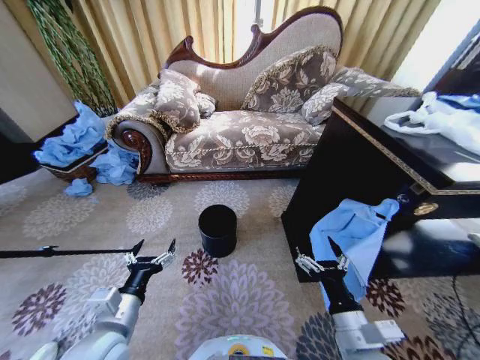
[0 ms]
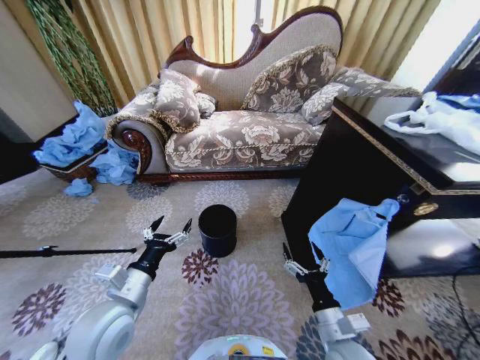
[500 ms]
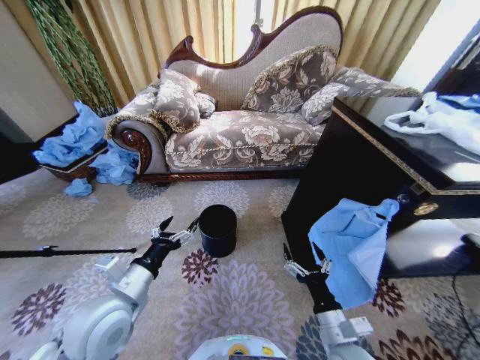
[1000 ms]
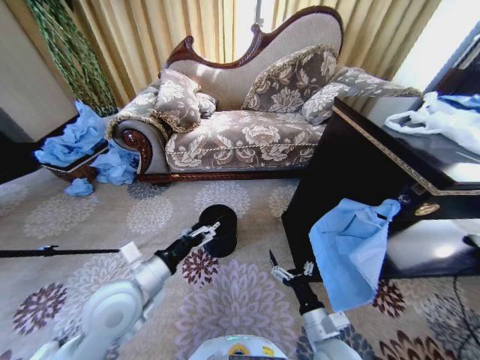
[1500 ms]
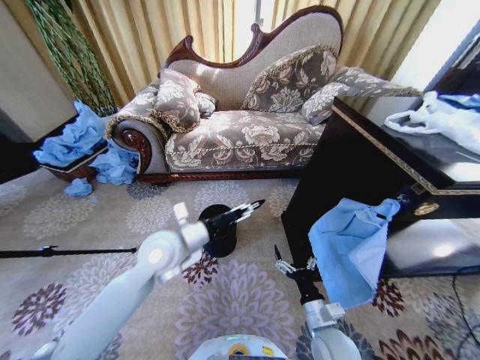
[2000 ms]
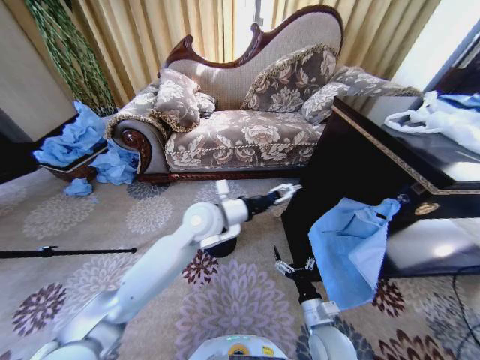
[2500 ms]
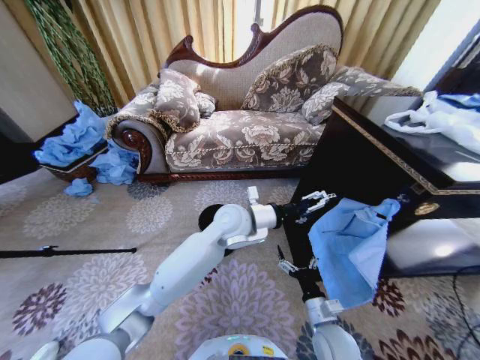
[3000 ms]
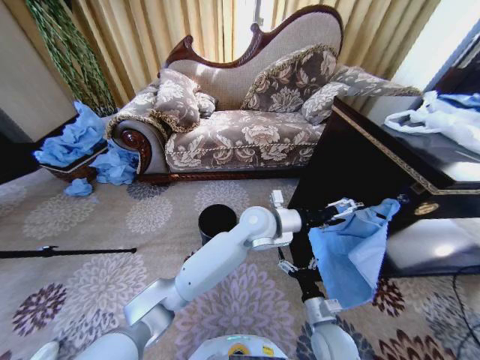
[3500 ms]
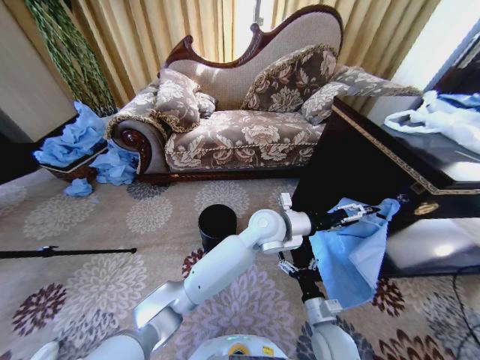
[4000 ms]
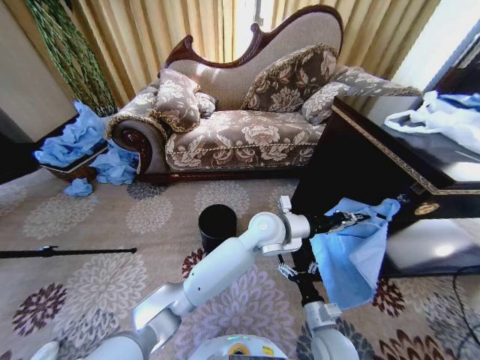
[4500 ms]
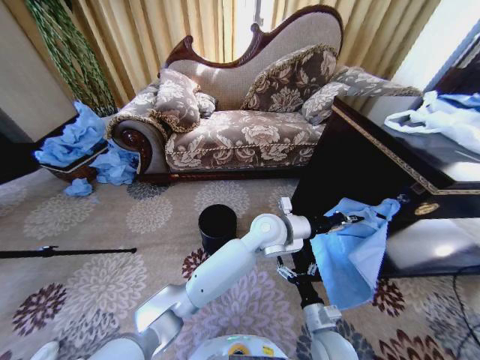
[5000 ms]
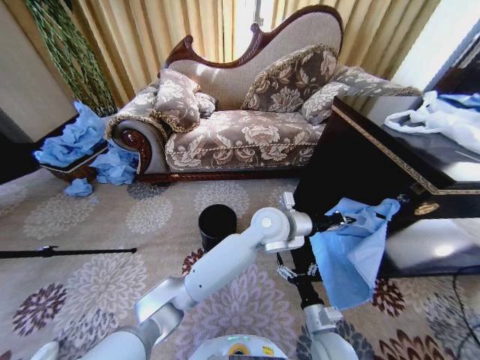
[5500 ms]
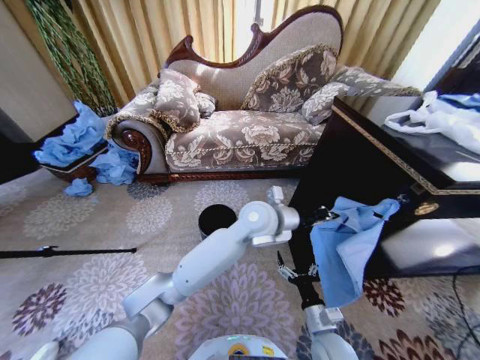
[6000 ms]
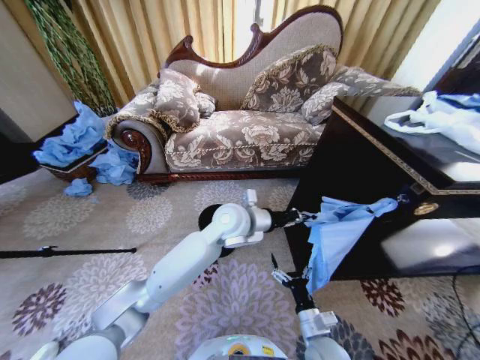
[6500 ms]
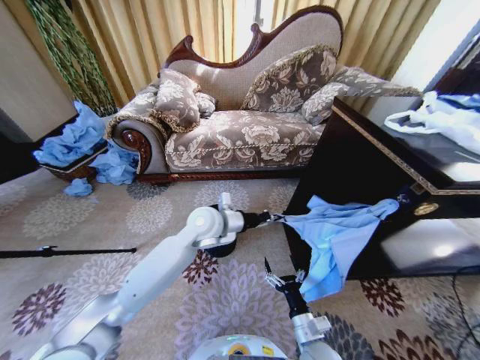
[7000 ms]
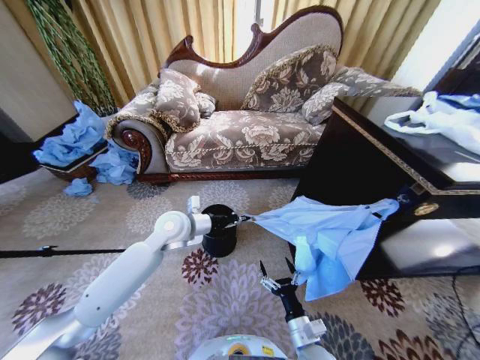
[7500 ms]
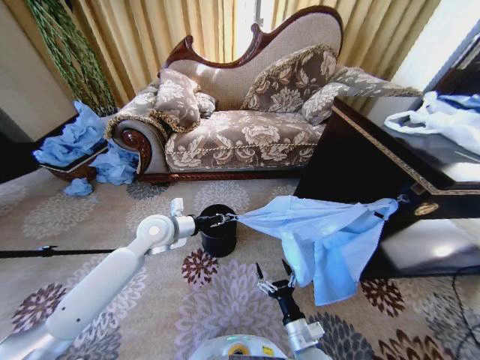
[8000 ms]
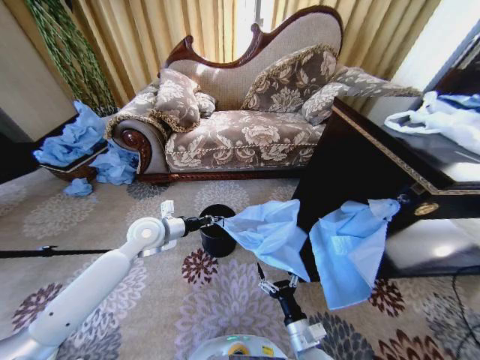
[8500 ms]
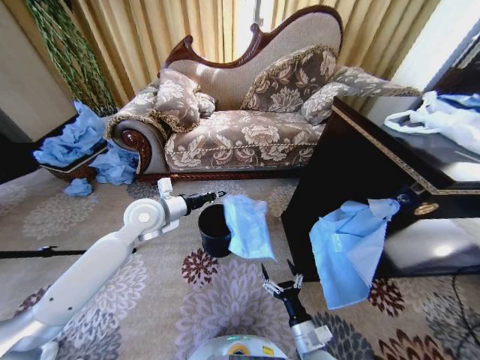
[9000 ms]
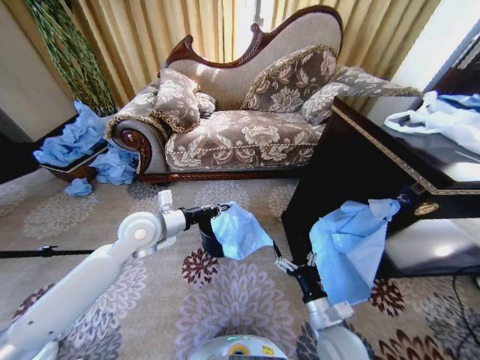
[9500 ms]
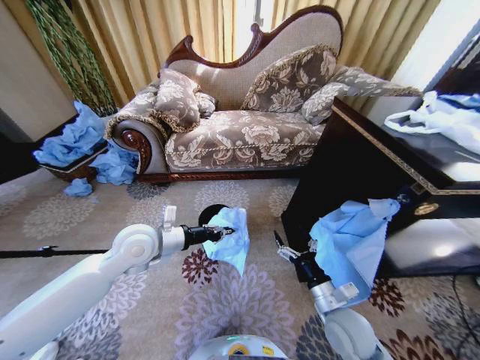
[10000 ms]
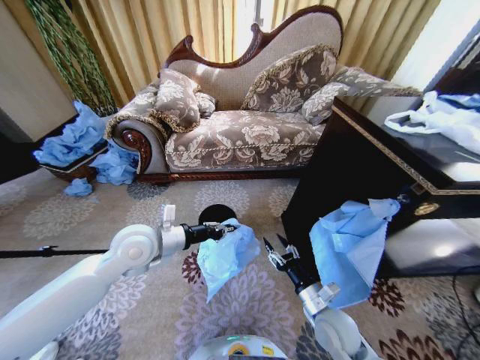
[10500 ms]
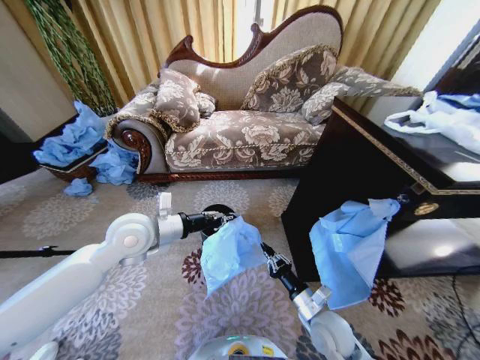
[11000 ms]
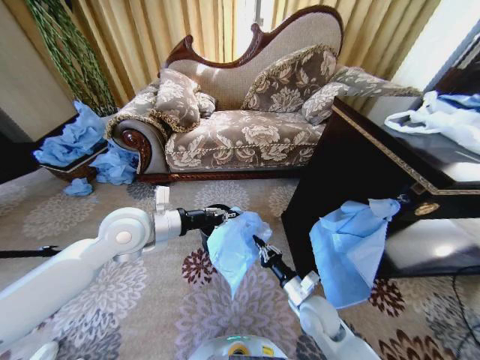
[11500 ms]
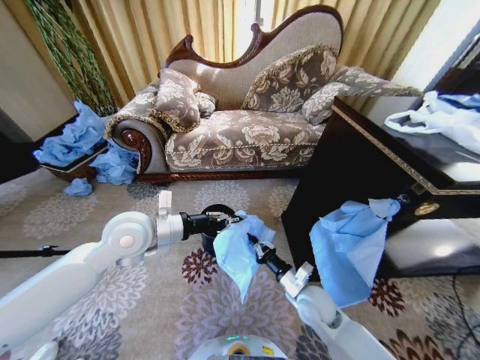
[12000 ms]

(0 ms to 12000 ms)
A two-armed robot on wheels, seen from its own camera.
Task of the whole recording: Place a garbage bag over the trash bin.
2000 ms - 4000 ms: The left gripper heads to the right, covering approximately 25 cm.
4000 ms - 6000 ms: The left gripper closes its fingers.
6000 ms - 8000 ms: The left gripper heads to the left, covering some 25 cm; the right gripper ends up roughly 5 cm from where it was.
8000 ms - 10000 ms: The left gripper heads backward, covering roughly 5 cm; the right gripper travels upward, to the right and forward by approximately 15 cm.
10000 ms - 12000 ms: The left gripper heads upward, covering approximately 5 cm. The right gripper shifts about 5 cm forward, and closes up.

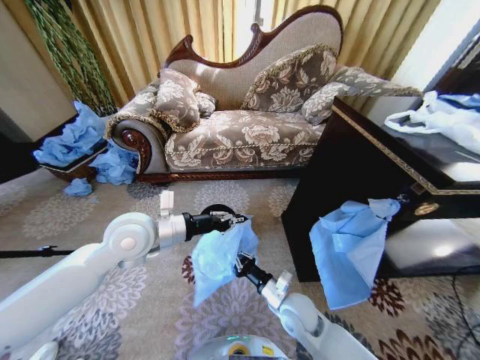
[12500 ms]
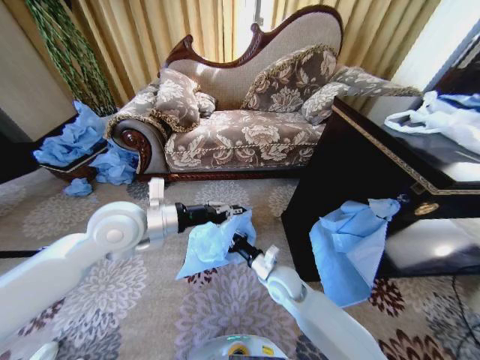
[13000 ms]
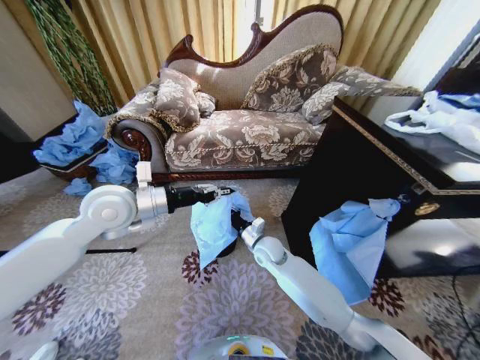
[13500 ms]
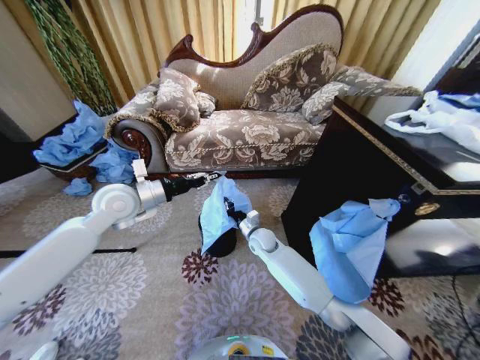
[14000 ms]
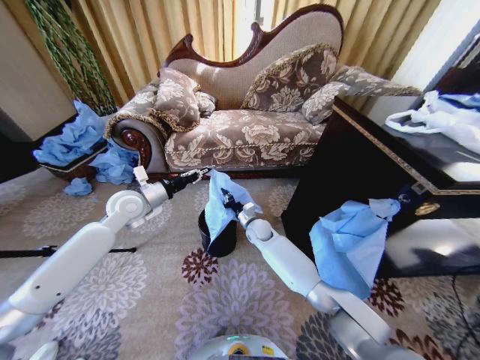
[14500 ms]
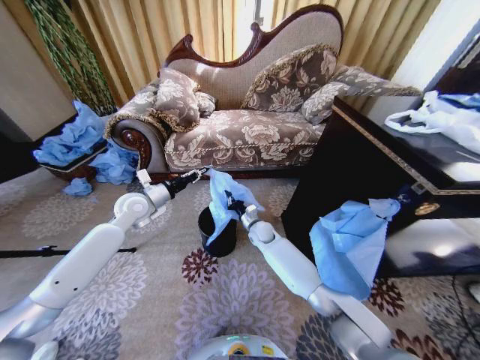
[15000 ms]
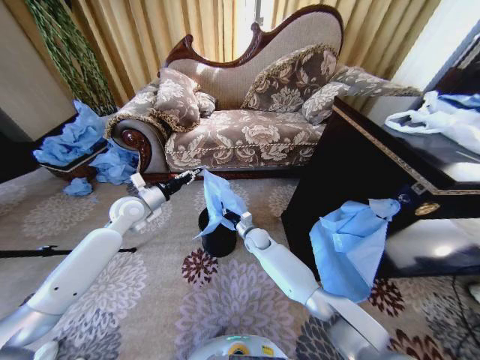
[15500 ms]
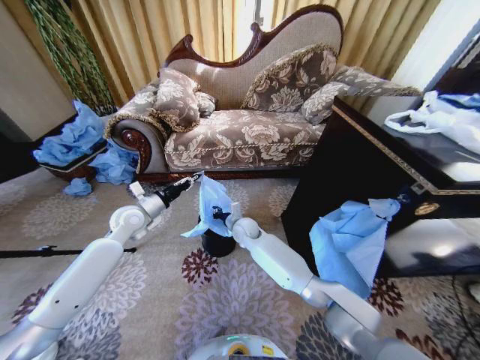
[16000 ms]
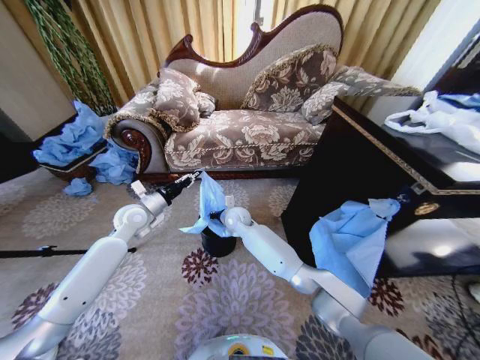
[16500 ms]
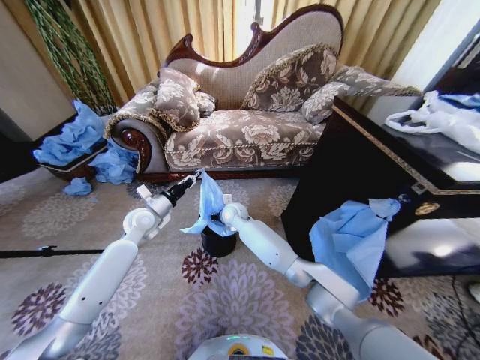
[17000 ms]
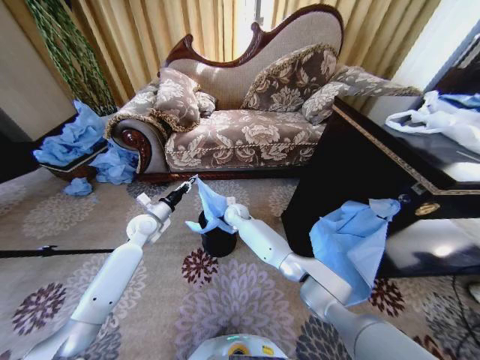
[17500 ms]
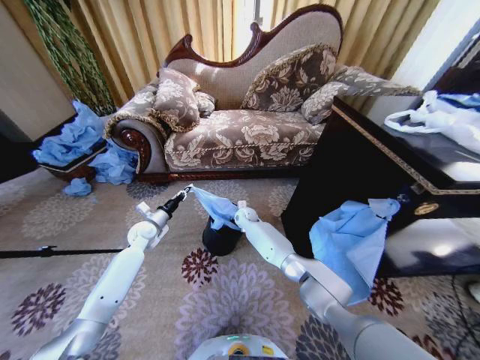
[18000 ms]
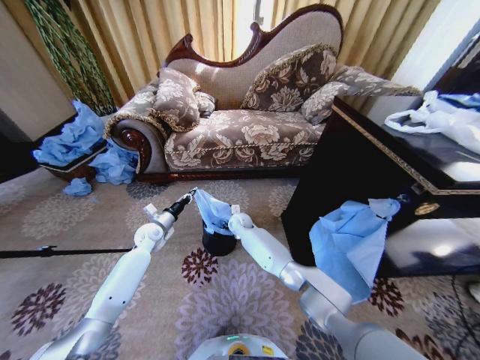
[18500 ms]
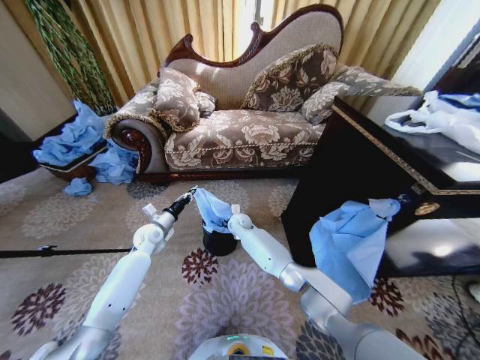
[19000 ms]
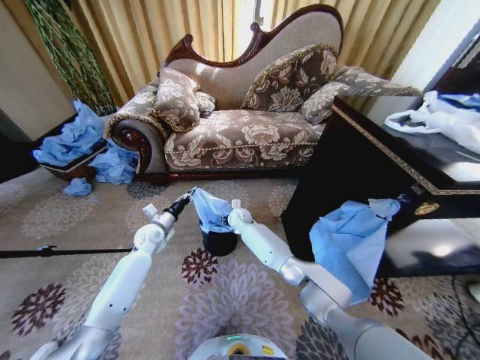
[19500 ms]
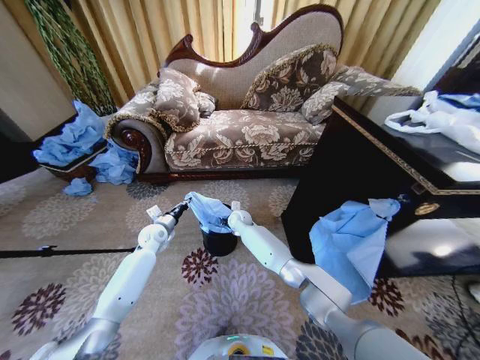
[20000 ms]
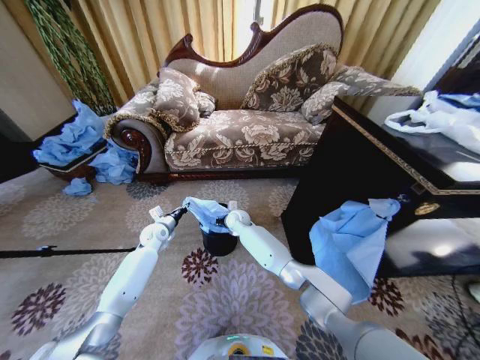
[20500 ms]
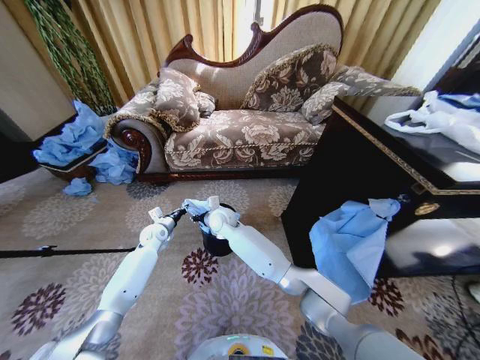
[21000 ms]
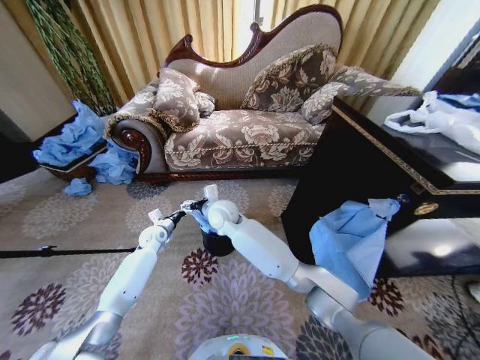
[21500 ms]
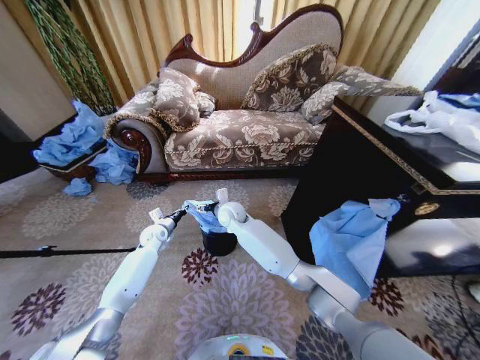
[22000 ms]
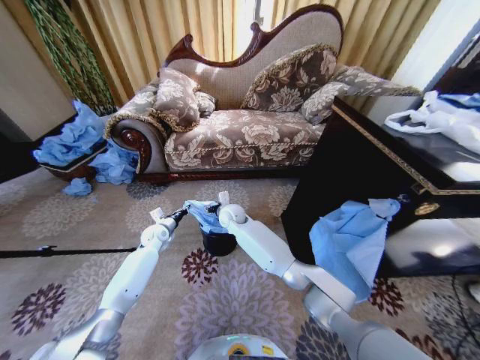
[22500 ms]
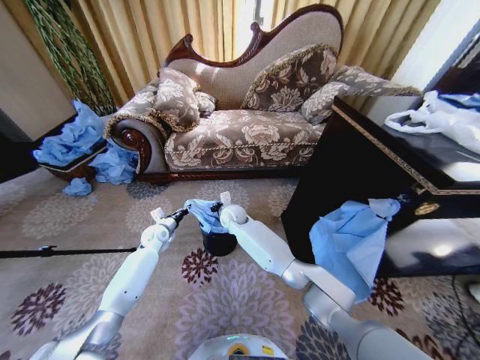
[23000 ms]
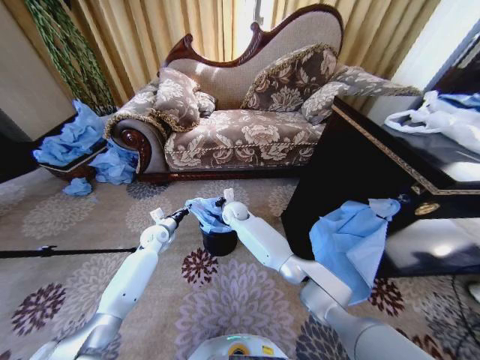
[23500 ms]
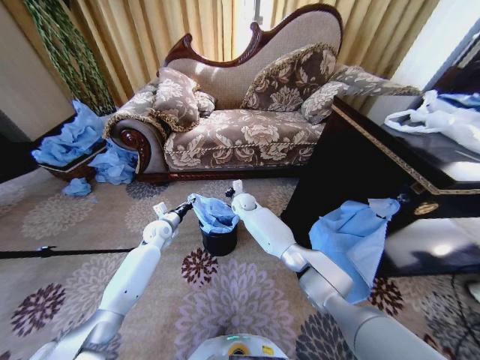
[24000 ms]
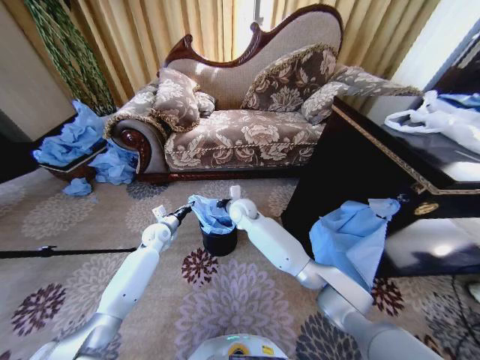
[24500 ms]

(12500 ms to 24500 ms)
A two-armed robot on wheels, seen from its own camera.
Task of the whole recording: Place a garbage bag over the trash bin.
12500 ms - 14500 ms: The right gripper heads forward, covering some 25 cm. Meanwhile the left gripper heads forward and to the left, covering some 15 cm.
14500 ms - 16500 ms: The right gripper travels to the left and upward by some 10 cm, while the left gripper heads downward, covering roughly 5 cm.
16500 ms - 18500 ms: The left gripper is displaced downward by approximately 10 cm; the right gripper moves downward, roughly 5 cm.
20500 ms - 22500 ms: The right gripper moves upward, about 5 cm, and opens up.
22500 ms - 24500 ms: The right gripper closes its fingers.

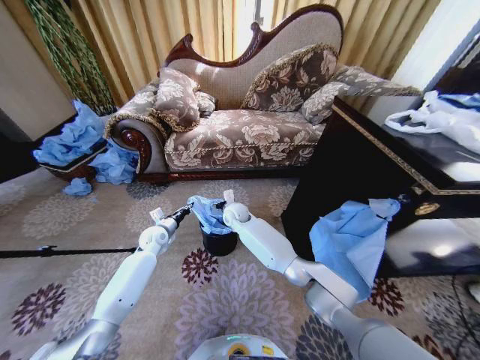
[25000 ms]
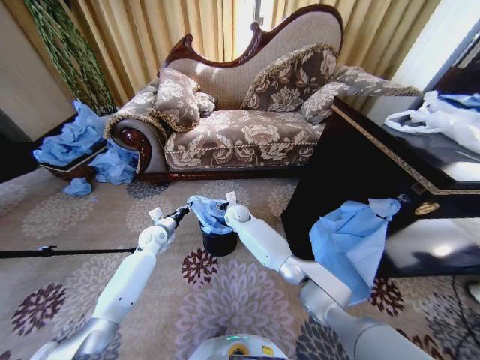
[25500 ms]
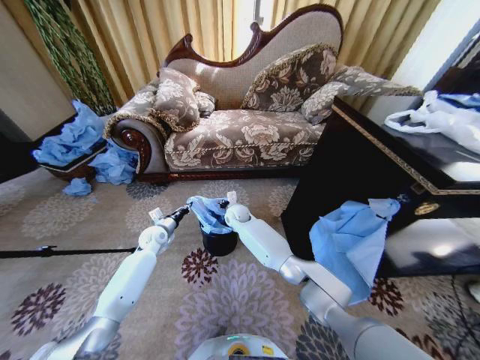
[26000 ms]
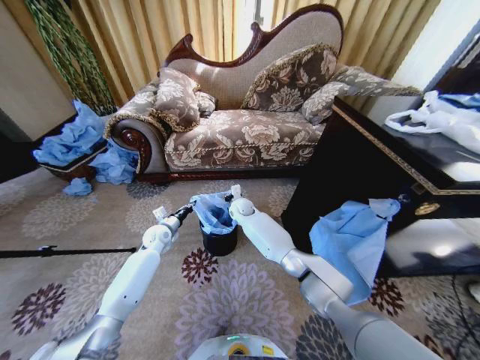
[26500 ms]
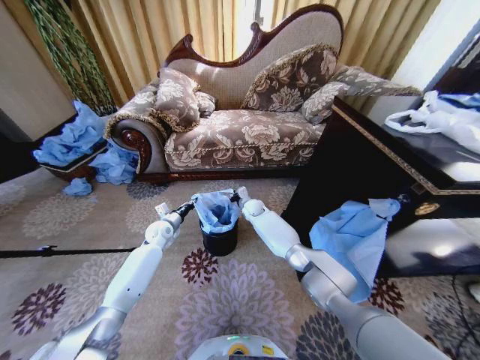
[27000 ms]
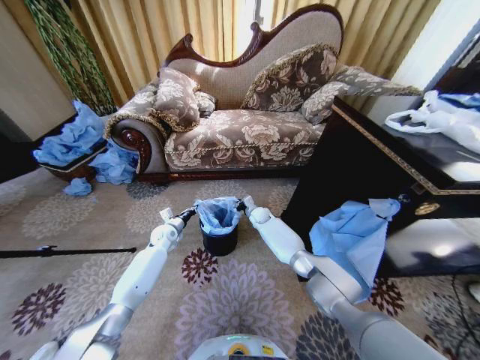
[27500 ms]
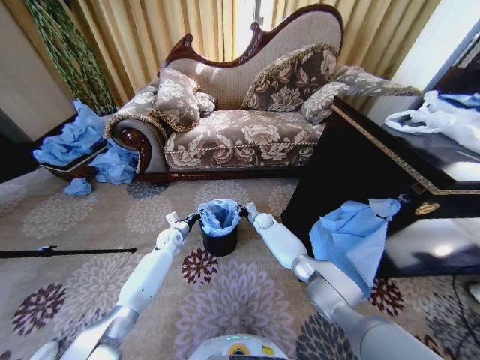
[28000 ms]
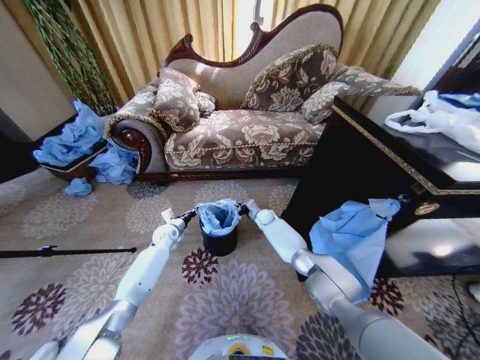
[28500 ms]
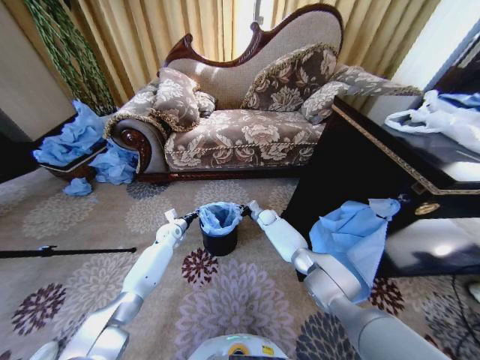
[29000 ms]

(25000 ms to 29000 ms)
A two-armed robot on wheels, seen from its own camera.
Task of the whole recording: Place a garbage bag over the trash bin.
25000 ms - 27000 ms: The right gripper shifts roughly 10 cm to the right and forward, and closes.
27000 ms - 29000 ms: The right gripper travels to the right and downward by some 10 cm. The left gripper goes some 5 cm downward.
